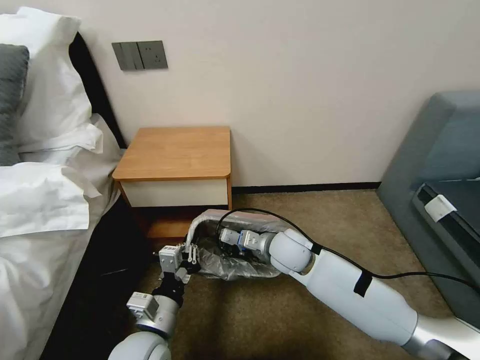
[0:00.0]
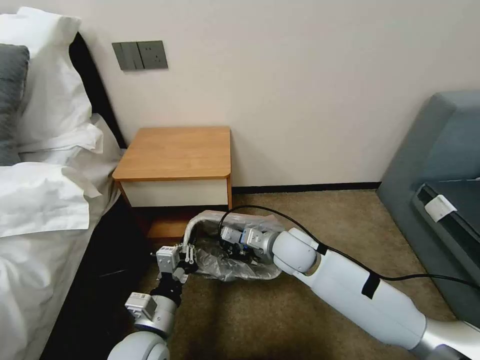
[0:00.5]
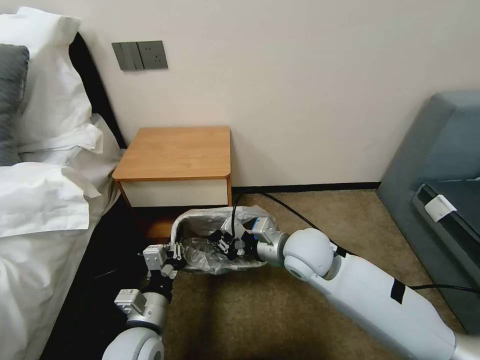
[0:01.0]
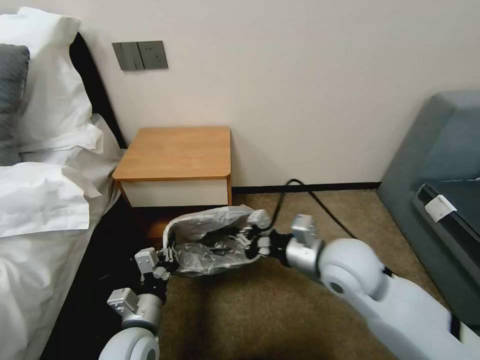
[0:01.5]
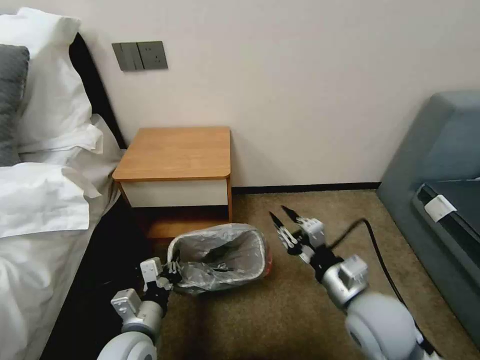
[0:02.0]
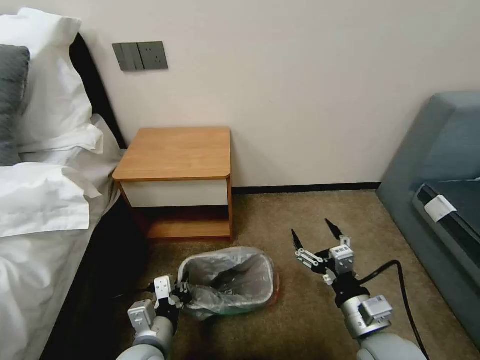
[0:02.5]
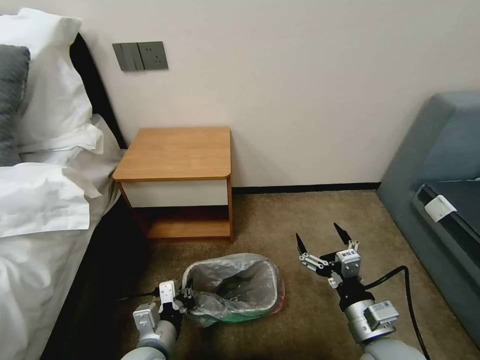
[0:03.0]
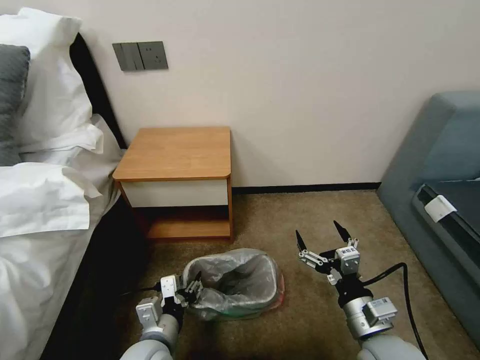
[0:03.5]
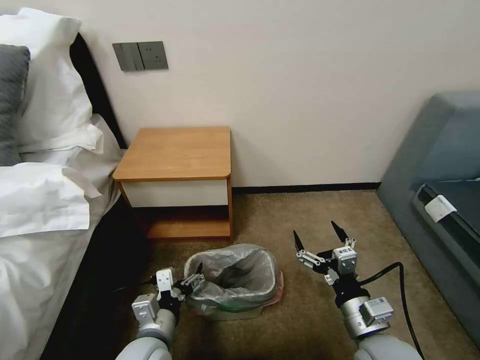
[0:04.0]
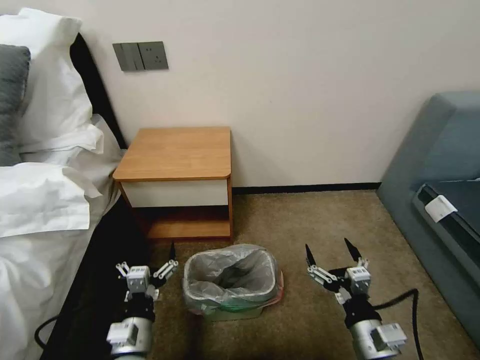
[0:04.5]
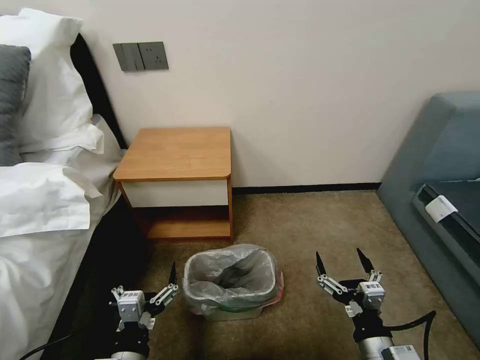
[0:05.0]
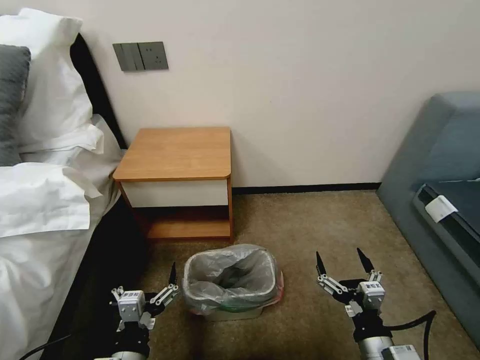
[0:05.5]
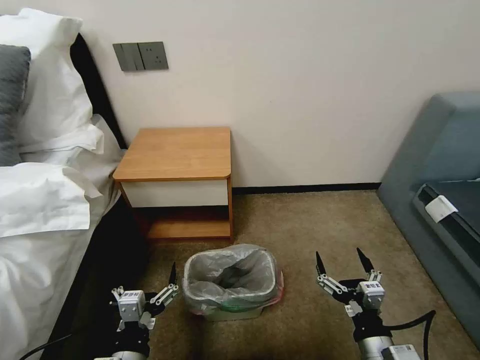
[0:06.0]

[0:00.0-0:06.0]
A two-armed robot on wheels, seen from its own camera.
Task of the whole recording: Pick up the garbage bag from the table and place it over the trash can.
0:00.0 to 0:02.0: The right gripper heads backward and to the right, covering about 20 cm.
0:02.0 to 0:04.0: The left gripper opens up. The right gripper shifts about 5 cm backward and downward, and opens.
0:04.0 to 0:06.0: The two grippers go about 5 cm backward.

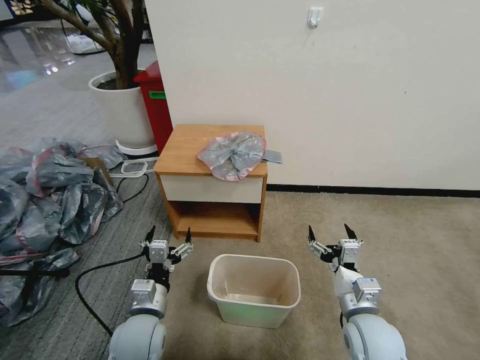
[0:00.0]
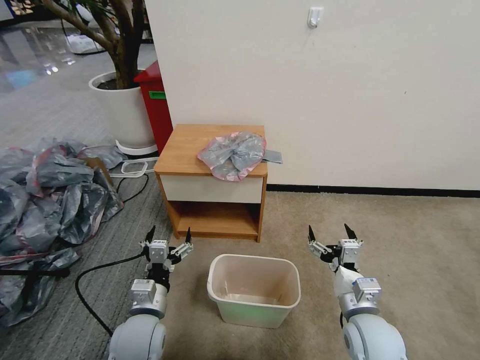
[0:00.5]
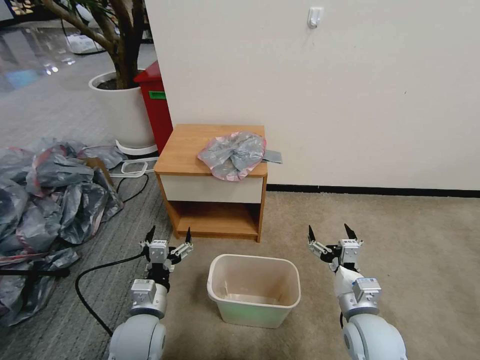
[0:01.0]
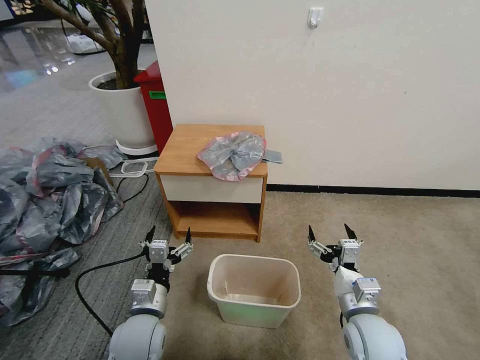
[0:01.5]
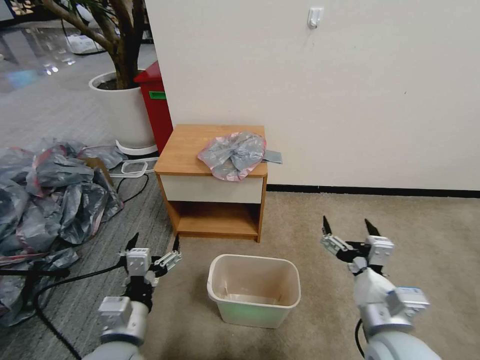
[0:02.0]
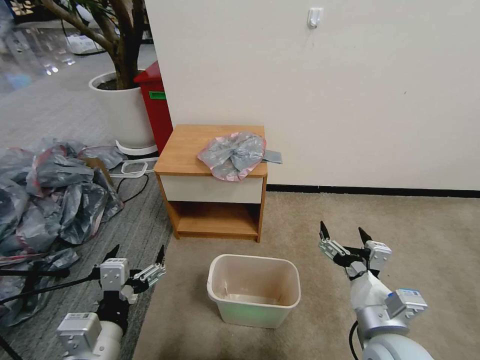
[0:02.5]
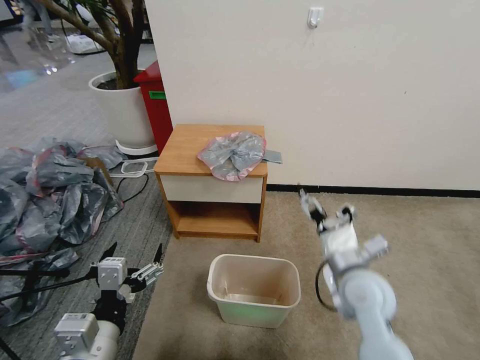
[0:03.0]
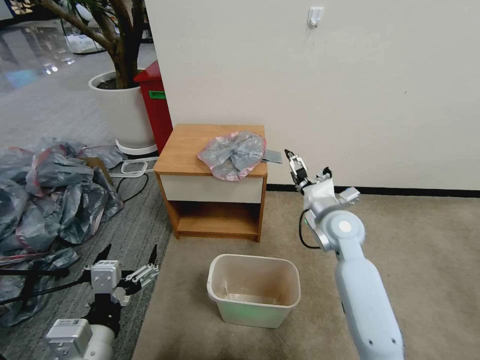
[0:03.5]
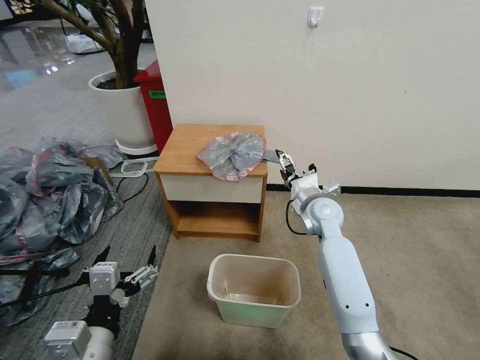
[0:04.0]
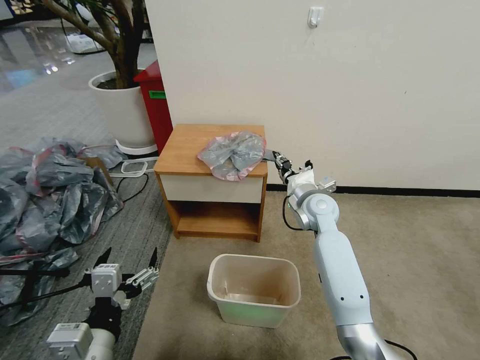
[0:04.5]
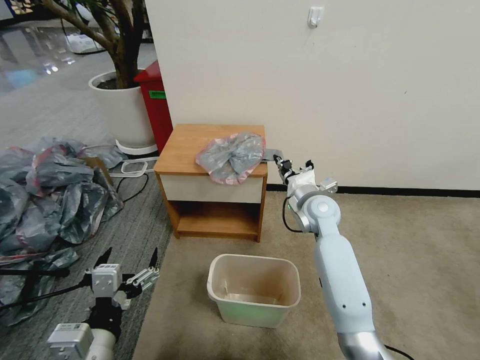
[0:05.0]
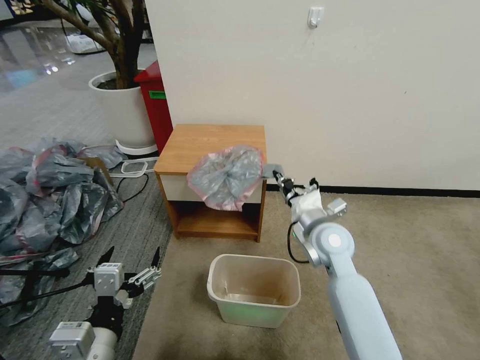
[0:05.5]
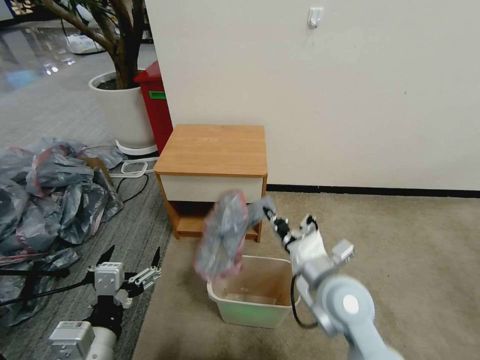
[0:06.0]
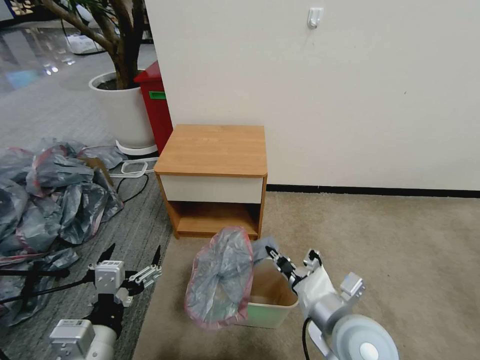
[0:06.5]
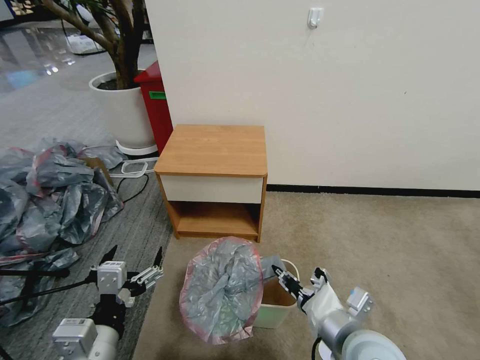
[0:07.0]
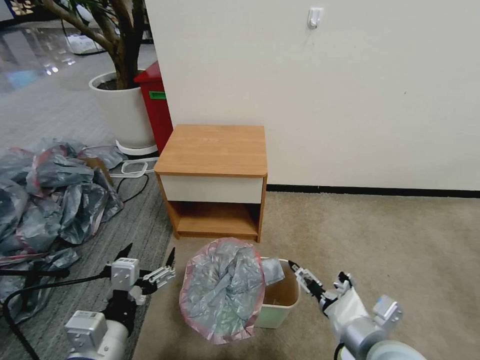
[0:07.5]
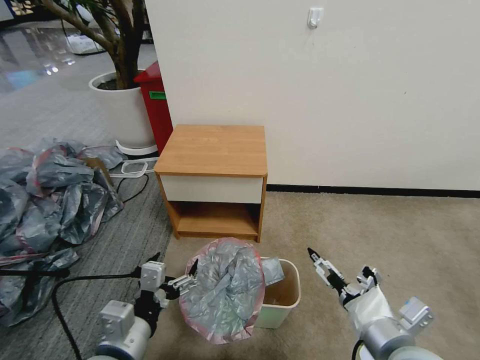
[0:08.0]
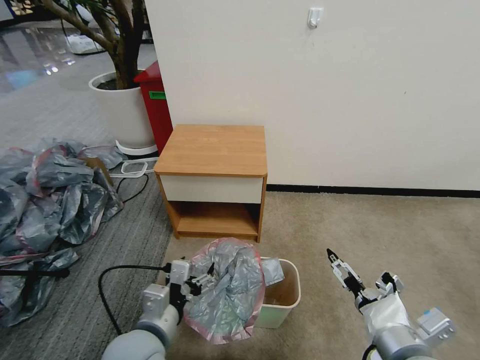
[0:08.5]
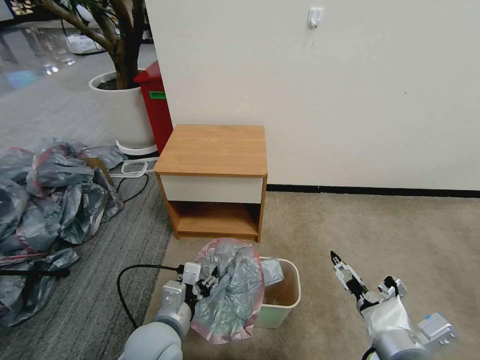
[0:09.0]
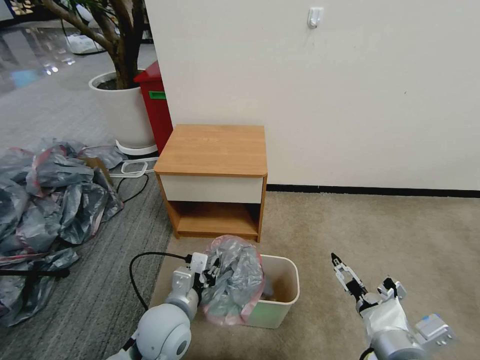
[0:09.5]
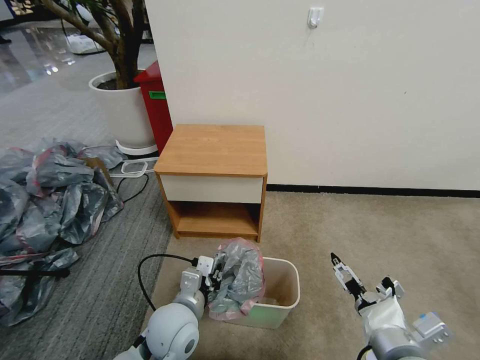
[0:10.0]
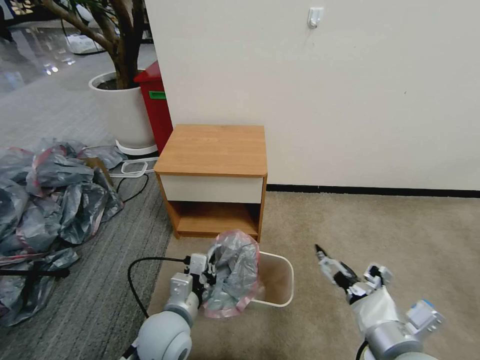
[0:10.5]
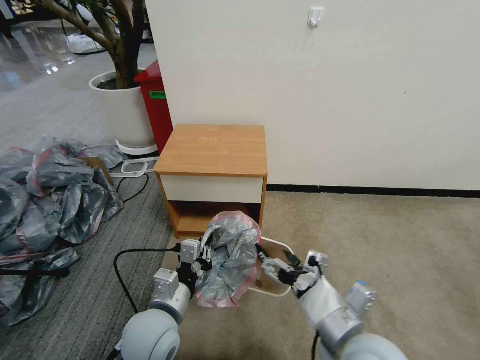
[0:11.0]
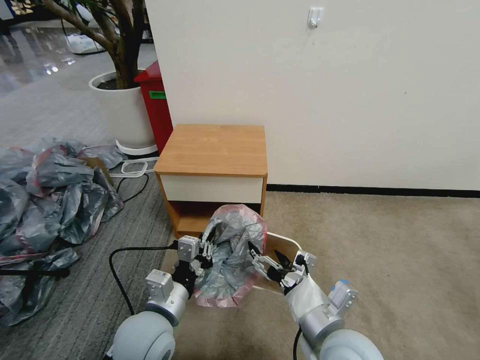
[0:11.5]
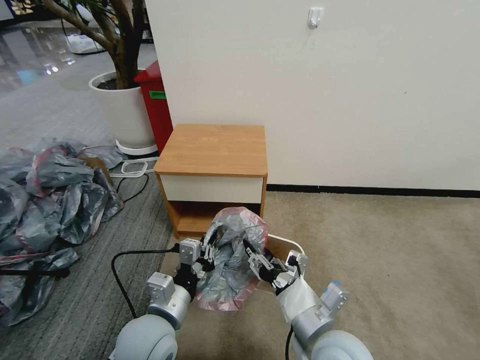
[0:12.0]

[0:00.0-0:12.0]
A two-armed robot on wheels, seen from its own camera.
Task of the whole recording: Pick up the garbage bag from the table and place it over the trash can.
0:02.0 to 0:04.0: The right gripper shifts about 30 cm forward, while the left gripper goes roughly 10 cm upward and backward.
0:04.0 to 0:06.0: The right gripper is displaced backward by some 20 cm, and closes up.
0:06.0 to 0:08.0: The right gripper heads backward and to the right, covering approximately 15 cm, and opens up.
0:08.0 to 0:10.0: The left gripper is displaced forward, downward and to the right by some 15 cm, and closes.
0:10.0 to 0:12.0: The left gripper shifts by about 5 cm. The right gripper shifts some 10 cm to the left, and closes.

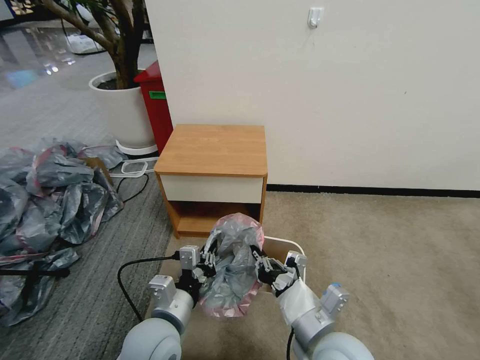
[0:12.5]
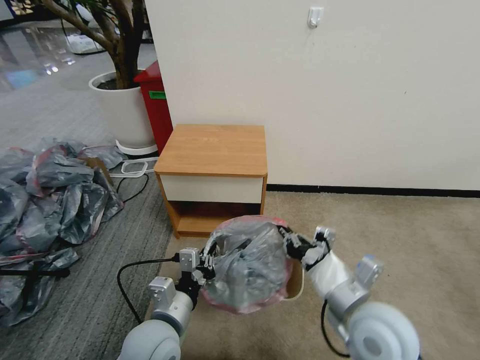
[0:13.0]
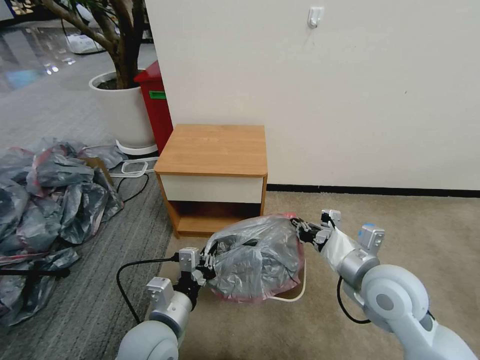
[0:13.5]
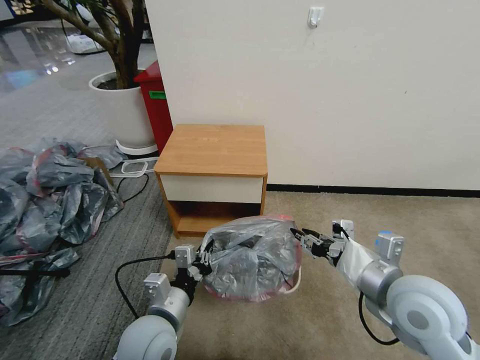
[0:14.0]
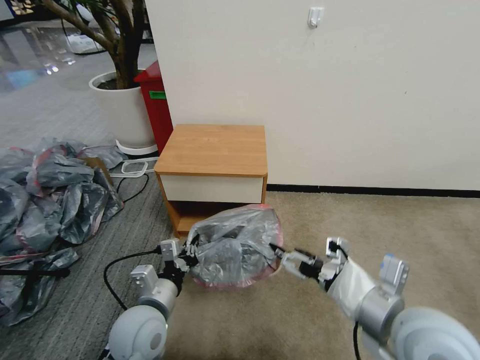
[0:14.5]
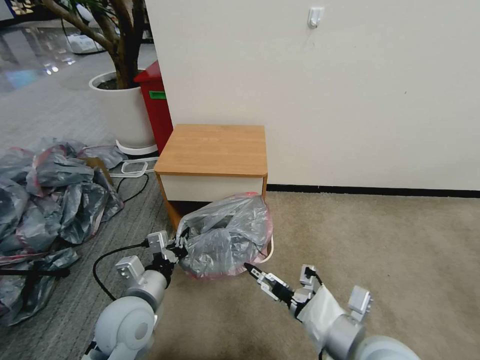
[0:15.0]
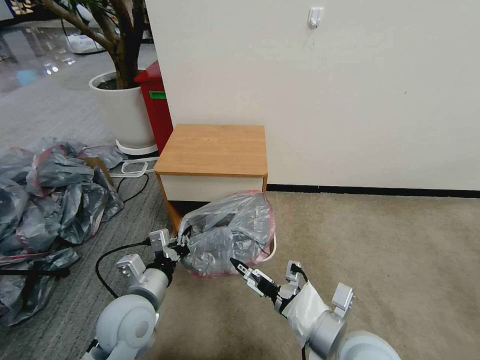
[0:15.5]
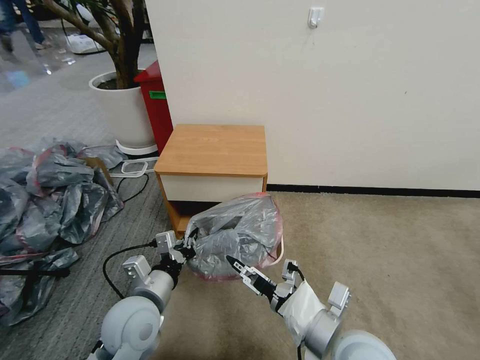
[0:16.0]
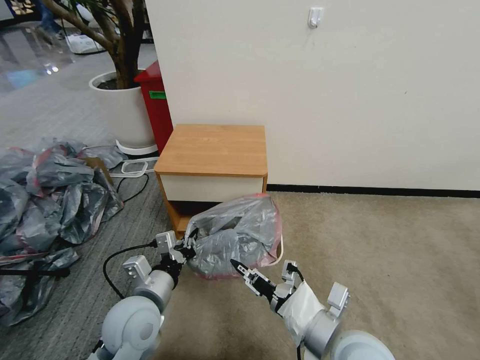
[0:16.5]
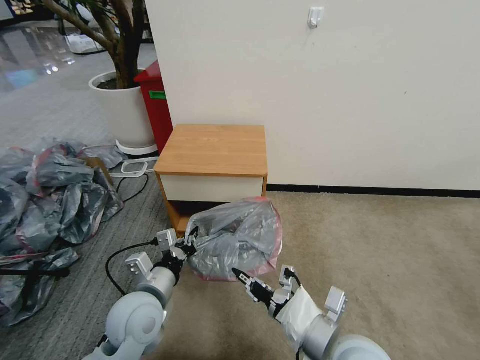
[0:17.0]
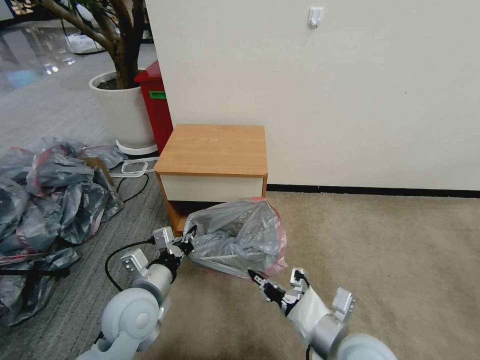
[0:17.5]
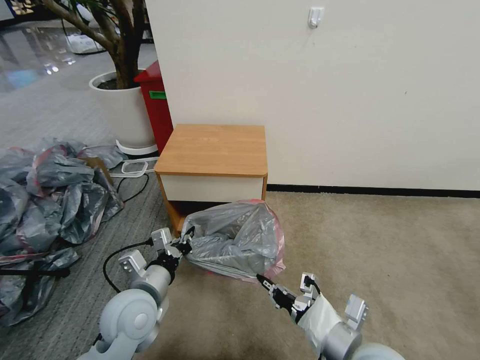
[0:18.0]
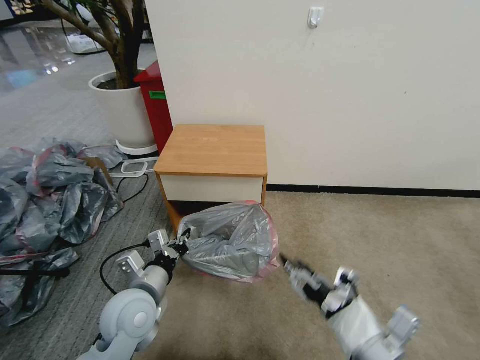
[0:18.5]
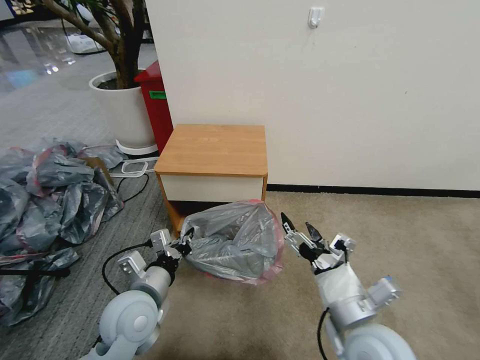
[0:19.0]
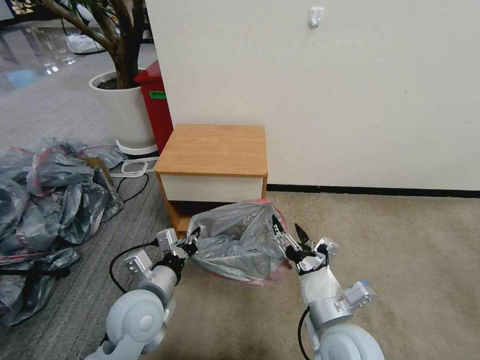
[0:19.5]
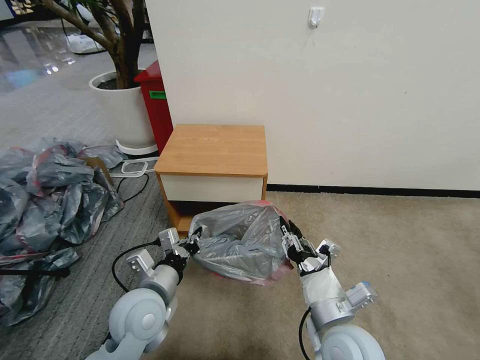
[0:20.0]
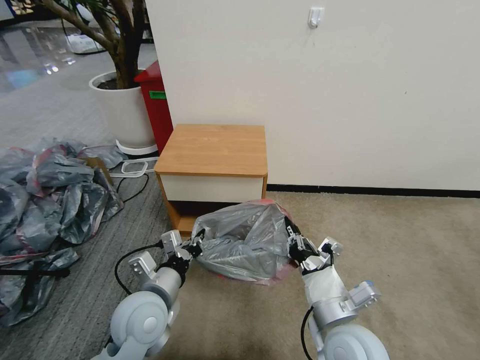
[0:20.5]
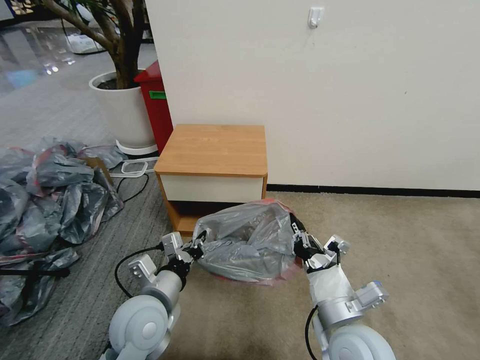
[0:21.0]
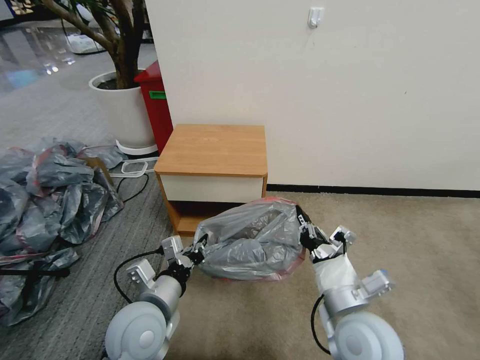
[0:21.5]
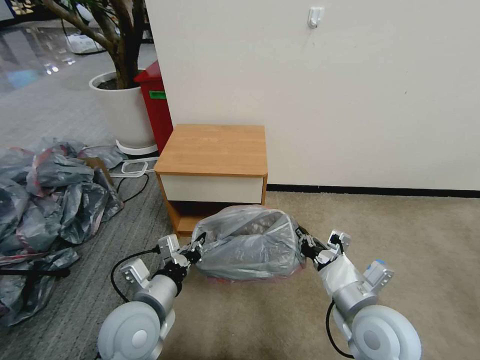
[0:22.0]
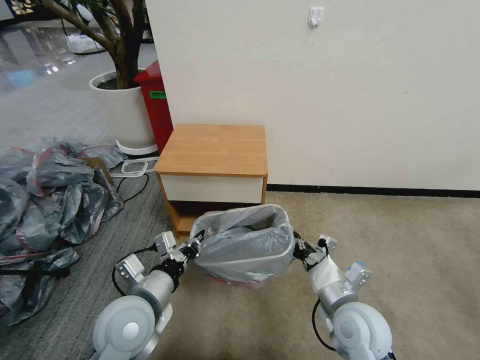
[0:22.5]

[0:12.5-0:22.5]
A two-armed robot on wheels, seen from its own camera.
Task of the whole recording: Pick up the garbage bag from the table and place it over the trash can.
0:12.5 to 0:14.5: The right gripper moves to the right and upward, some 15 cm, and opens its fingers.
0:14.5 to 0:16.5: The right gripper heads downward and to the left, covering about 10 cm, and closes its fingers.
0:16.5 to 0:18.5: The right gripper shifts about 5 cm to the right and backward.
0:18.5 to 0:20.5: The right gripper is displaced forward and to the left by approximately 10 cm, and closes.
0:20.5 to 0:22.5: The right gripper shifts by approximately 5 cm.
